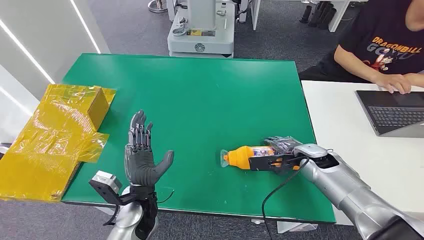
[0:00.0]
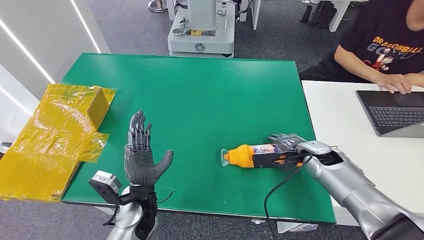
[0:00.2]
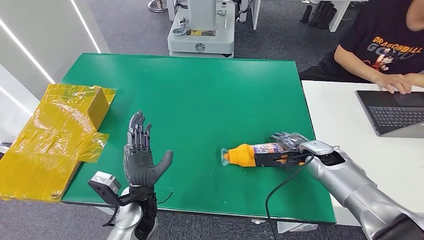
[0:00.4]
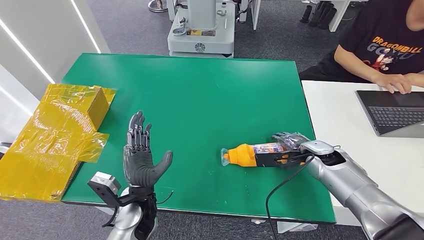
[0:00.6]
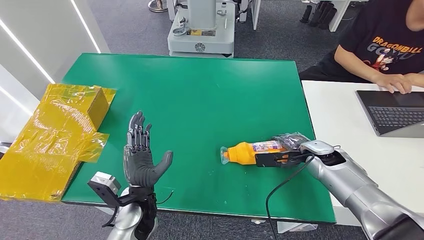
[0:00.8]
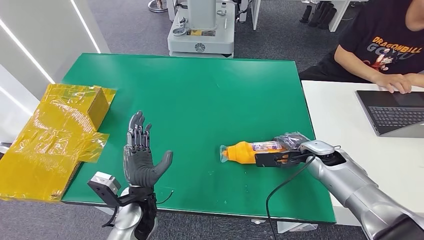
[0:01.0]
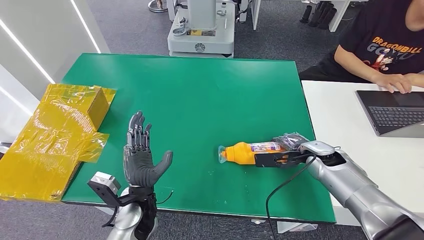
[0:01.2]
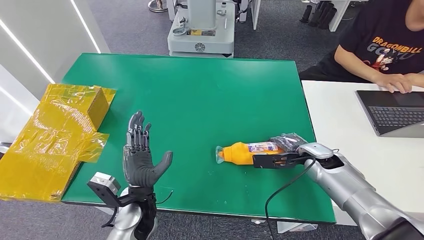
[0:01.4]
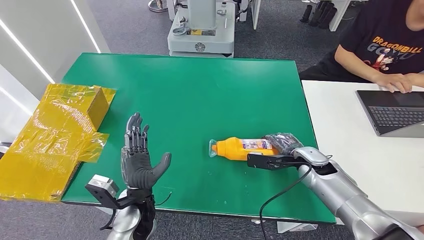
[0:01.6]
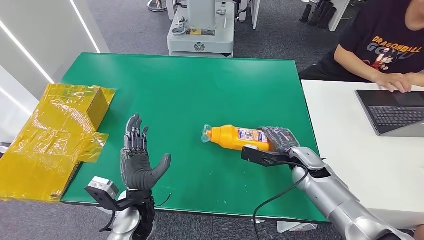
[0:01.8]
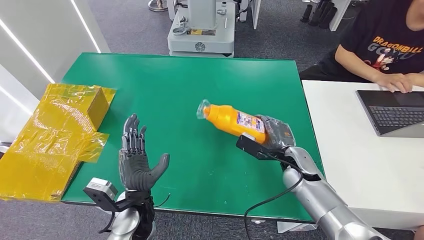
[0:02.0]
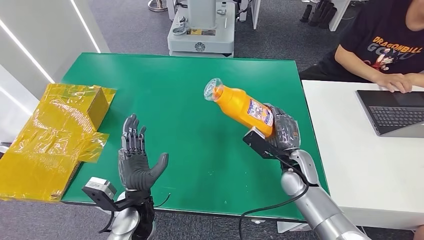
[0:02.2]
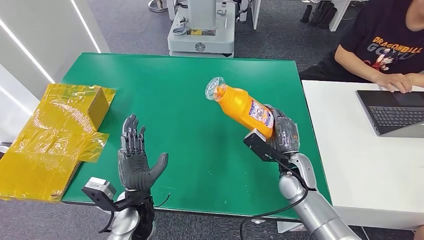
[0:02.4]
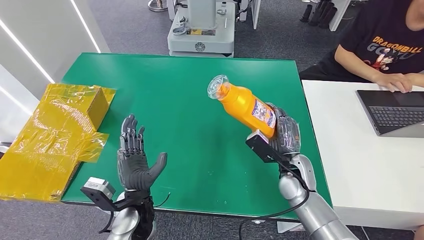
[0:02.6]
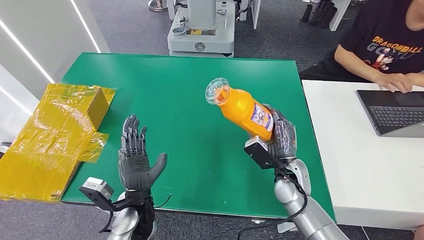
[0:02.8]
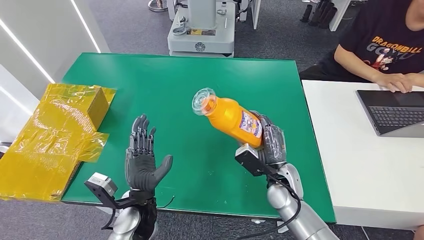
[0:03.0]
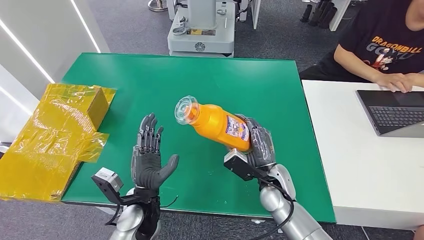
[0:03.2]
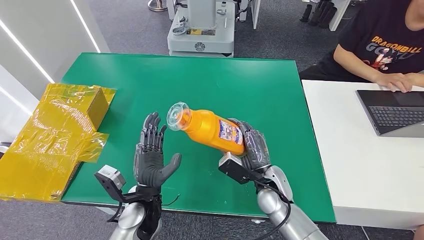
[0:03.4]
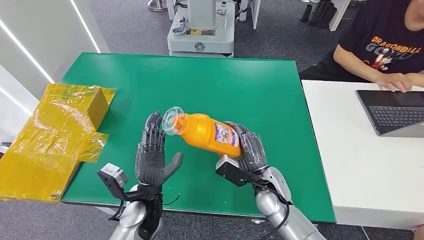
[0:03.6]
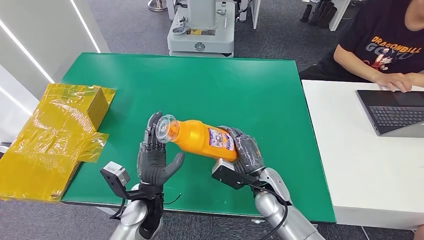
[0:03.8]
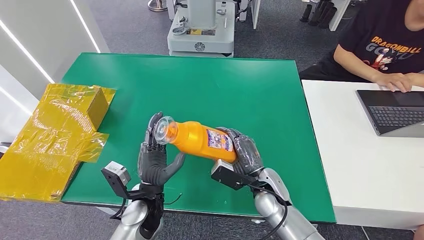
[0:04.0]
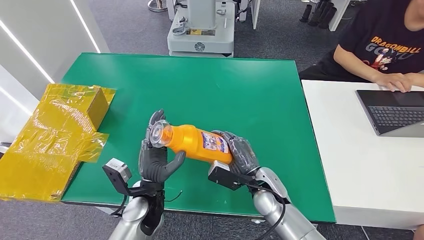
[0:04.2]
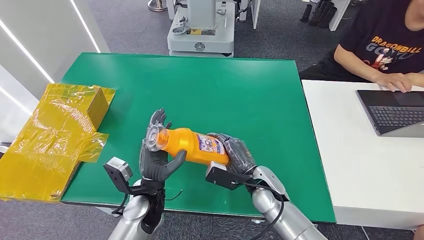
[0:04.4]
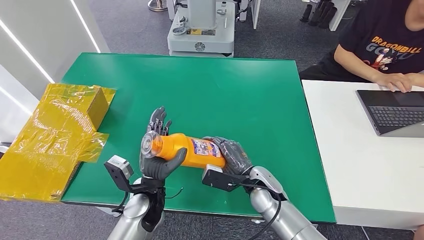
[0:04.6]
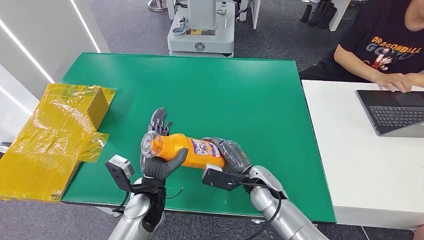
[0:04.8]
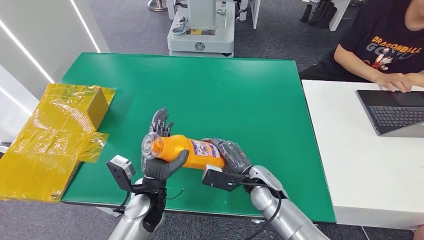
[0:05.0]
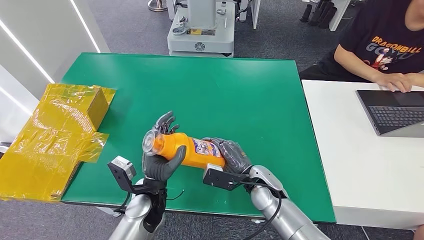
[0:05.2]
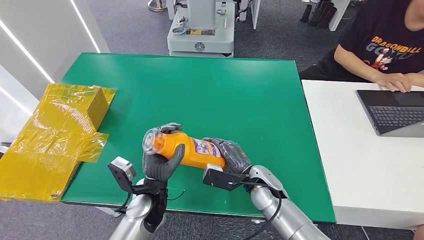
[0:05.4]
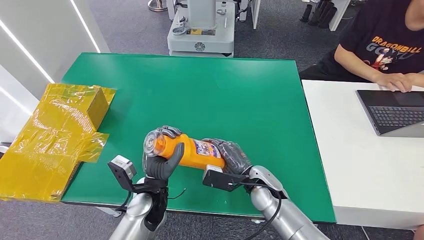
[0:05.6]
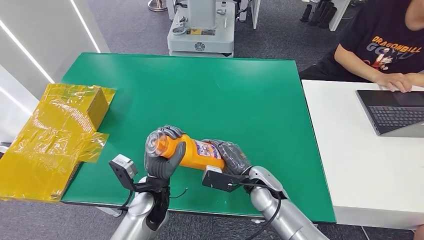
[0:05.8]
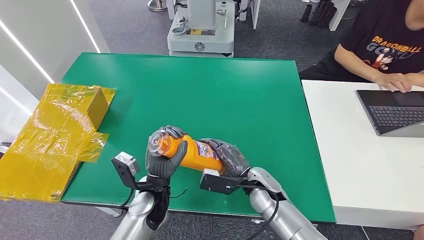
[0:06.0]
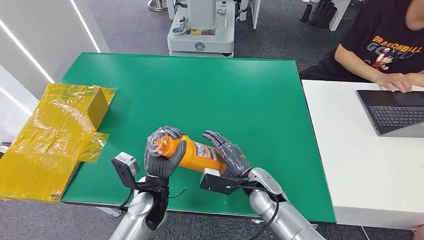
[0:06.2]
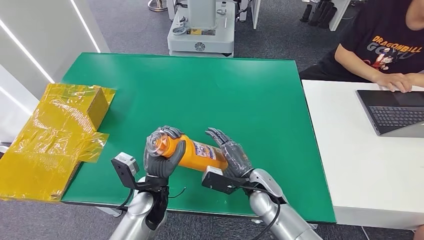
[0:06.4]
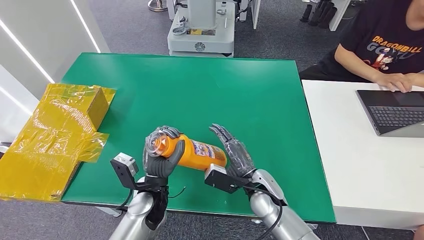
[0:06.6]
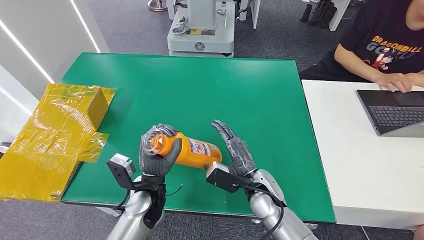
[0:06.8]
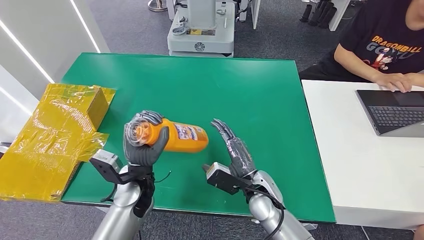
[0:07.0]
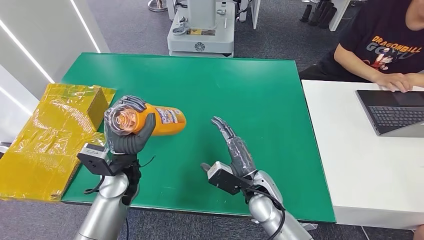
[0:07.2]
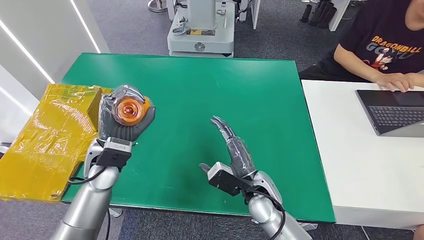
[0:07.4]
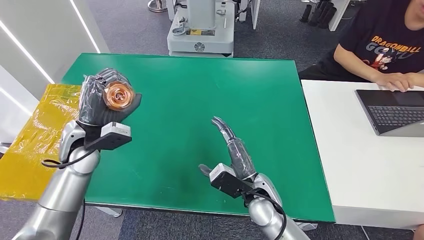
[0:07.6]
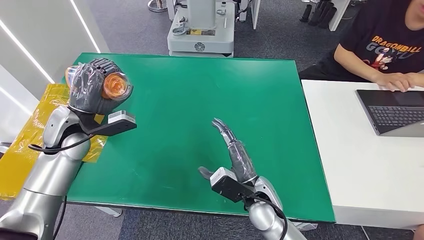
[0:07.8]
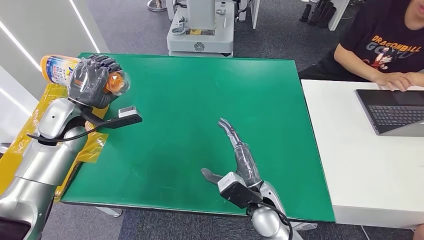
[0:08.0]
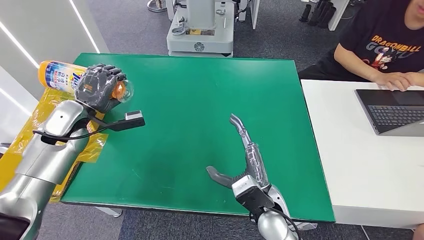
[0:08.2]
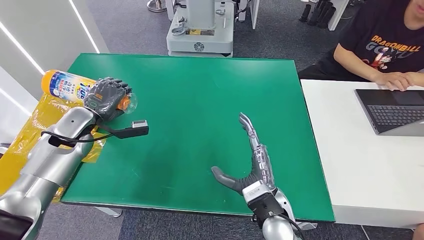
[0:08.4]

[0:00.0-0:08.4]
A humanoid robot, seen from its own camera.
Step, 0:00.0 to 0:03.0: Pick up the bottle from the table.
Step, 0:03.2 to 0:08.4: Turn the bottle to the front side.
0:01.4 to 0:02.8: The right hand shifts approximately 15 cm to the left and backward.
0:02.8 to 0:04.2: The right hand moves to the left, roughly 5 cm.
0:04.2 to 0:05.6: The hands make only small movements.
0:05.6 to 0:07.0: The left hand moves approximately 5 cm.
0:07.0 to 0:08.4: The left hand shifts some 25 cm to the left and forward, while the right hand goes about 5 cm backward.

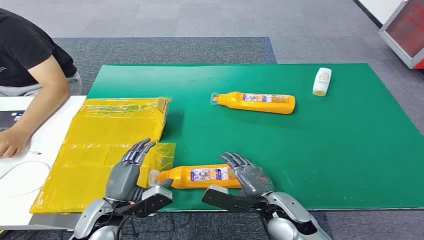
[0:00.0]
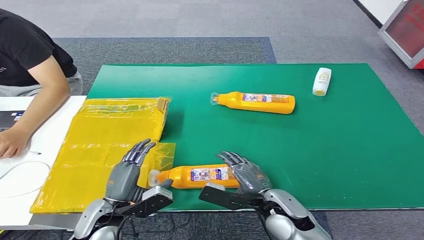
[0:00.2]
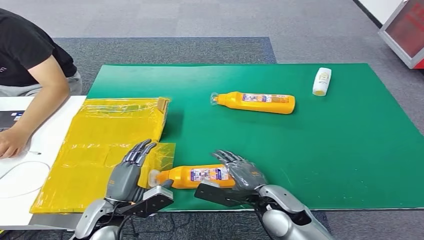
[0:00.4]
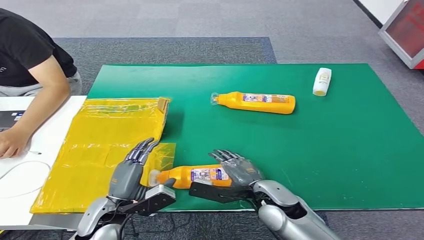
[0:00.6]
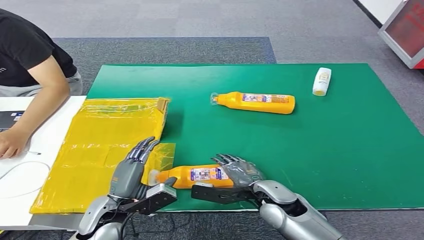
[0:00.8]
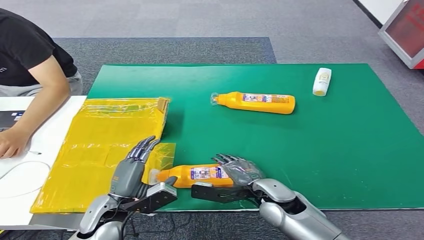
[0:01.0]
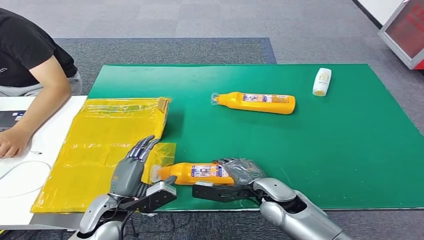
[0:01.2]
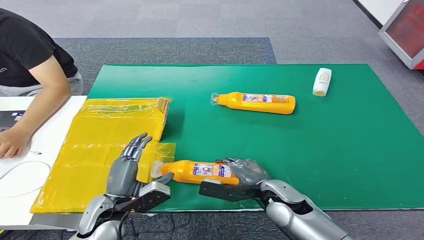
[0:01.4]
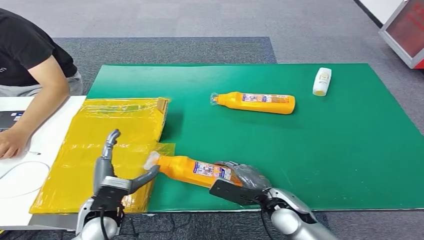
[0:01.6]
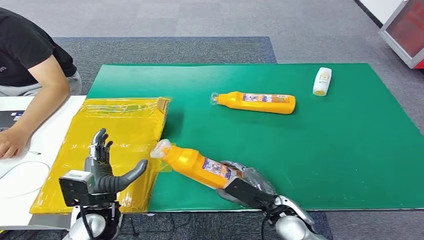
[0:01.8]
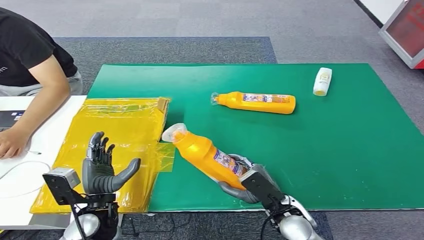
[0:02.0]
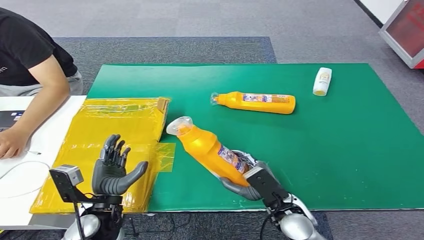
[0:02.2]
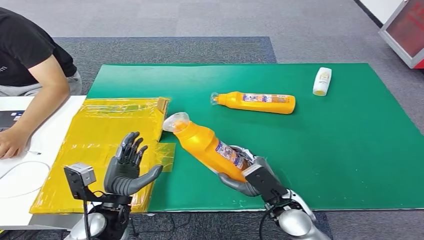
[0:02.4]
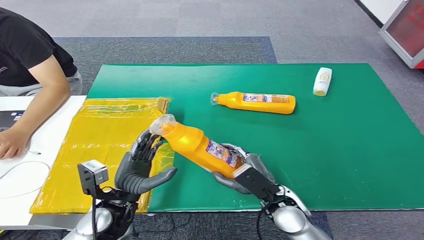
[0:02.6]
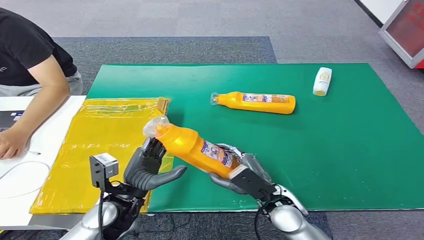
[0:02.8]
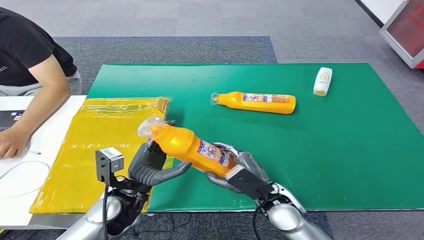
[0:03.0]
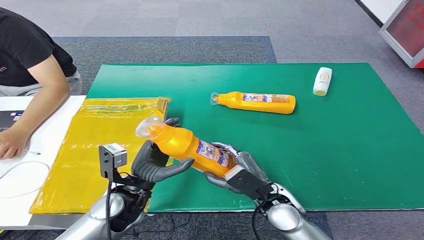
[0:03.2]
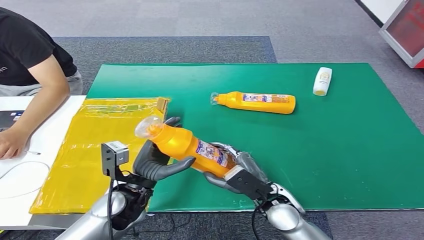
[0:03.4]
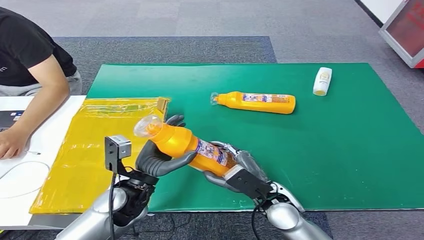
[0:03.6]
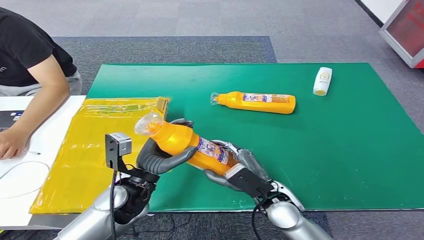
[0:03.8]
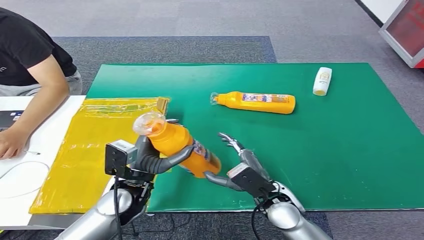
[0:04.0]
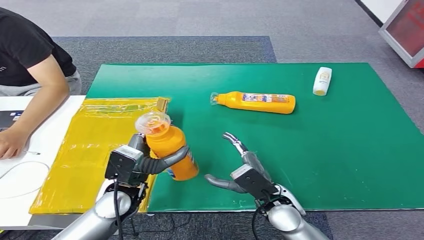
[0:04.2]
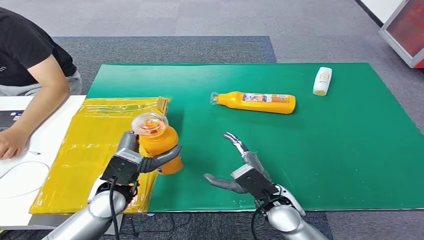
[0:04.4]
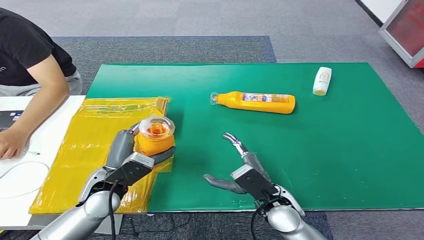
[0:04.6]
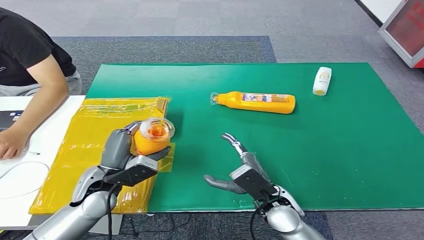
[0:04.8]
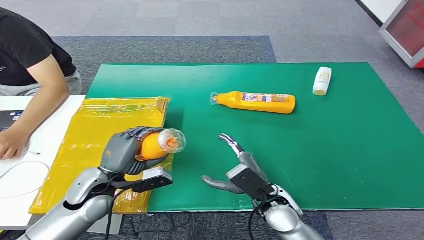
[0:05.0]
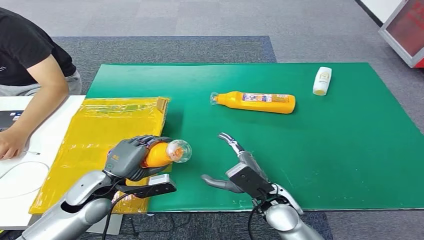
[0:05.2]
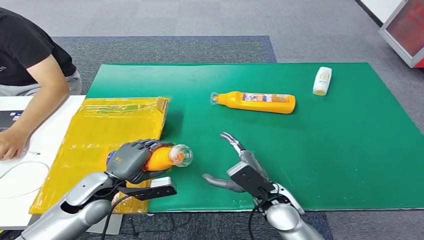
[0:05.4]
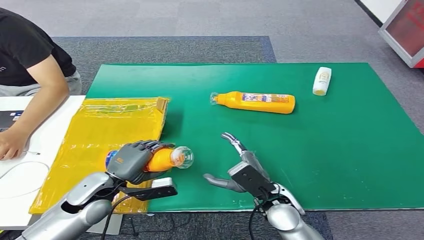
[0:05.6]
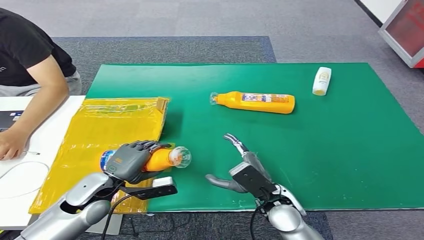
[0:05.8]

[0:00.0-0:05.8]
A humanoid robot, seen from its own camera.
Step, 0:00.0 to 0:02.0: Pick up the bottle from the table.
Step, 0:02.4 to 0:05.8: Turn the bottle to the front side.
0:04.4 to 0:05.8: The left hand is displaced to the left by about 5 cm.
